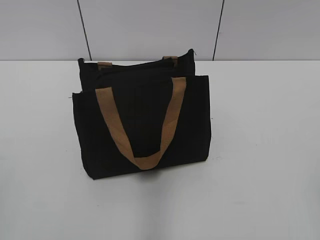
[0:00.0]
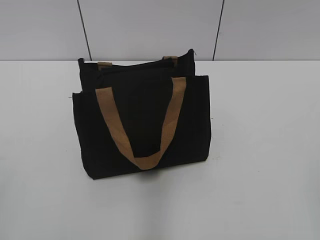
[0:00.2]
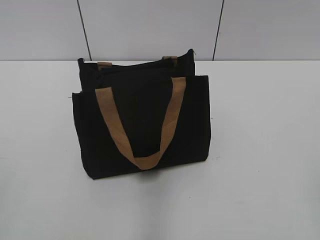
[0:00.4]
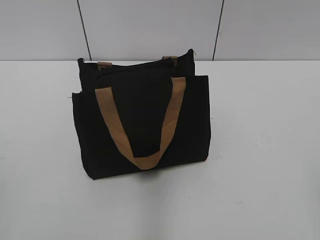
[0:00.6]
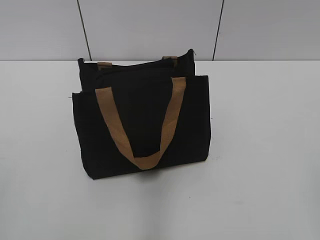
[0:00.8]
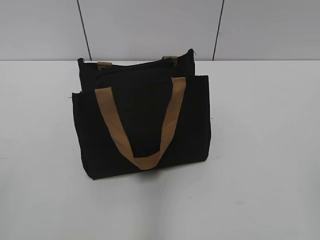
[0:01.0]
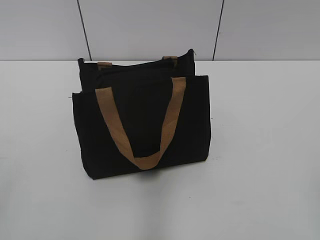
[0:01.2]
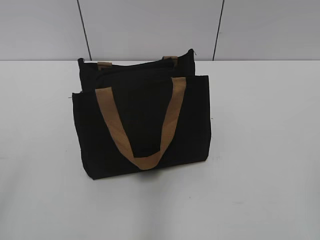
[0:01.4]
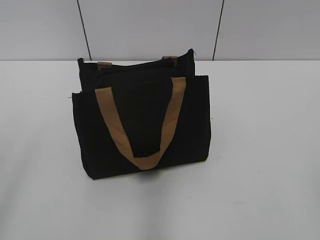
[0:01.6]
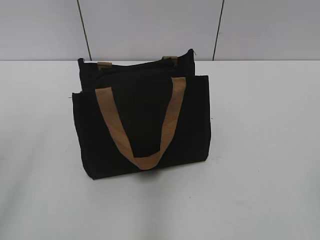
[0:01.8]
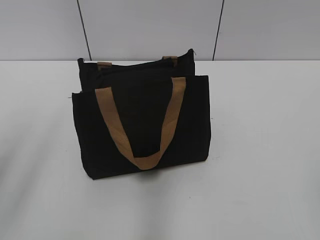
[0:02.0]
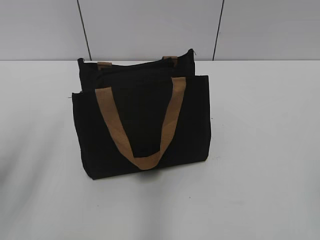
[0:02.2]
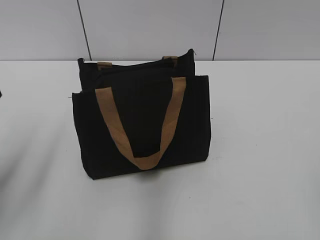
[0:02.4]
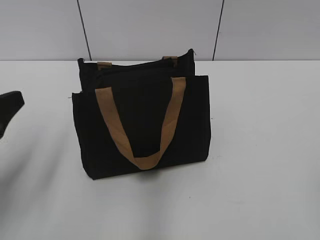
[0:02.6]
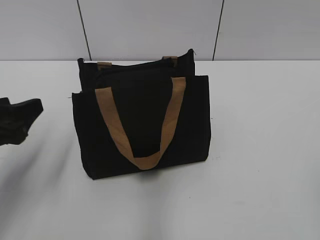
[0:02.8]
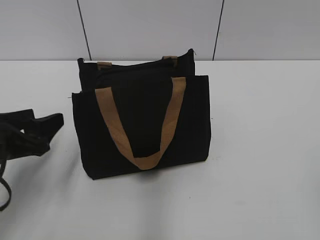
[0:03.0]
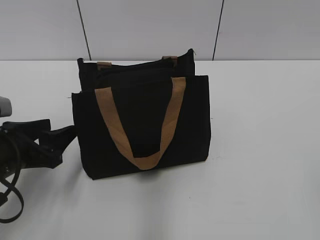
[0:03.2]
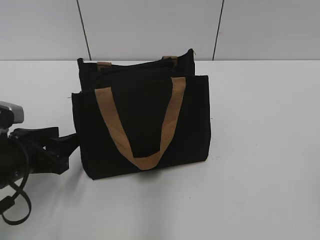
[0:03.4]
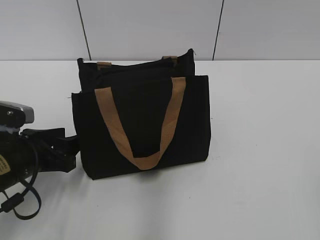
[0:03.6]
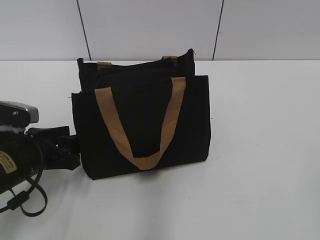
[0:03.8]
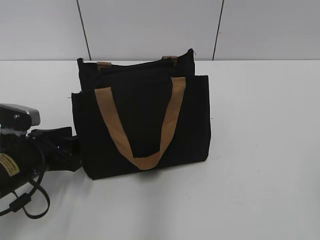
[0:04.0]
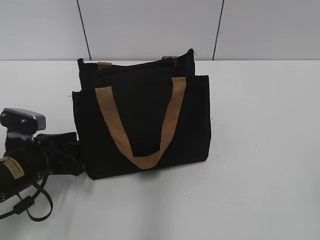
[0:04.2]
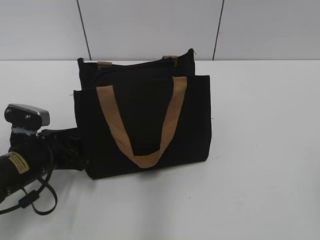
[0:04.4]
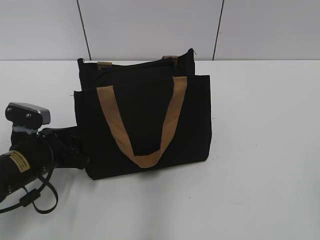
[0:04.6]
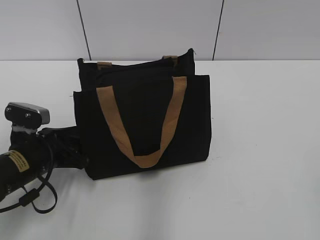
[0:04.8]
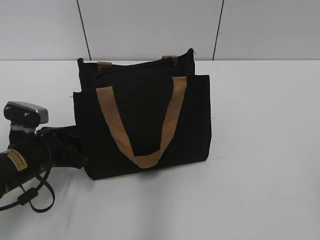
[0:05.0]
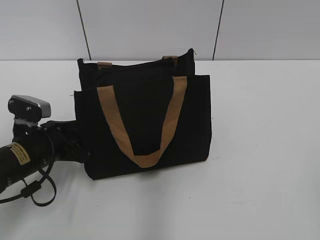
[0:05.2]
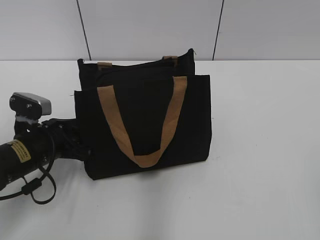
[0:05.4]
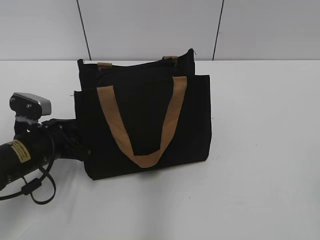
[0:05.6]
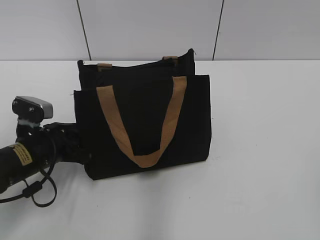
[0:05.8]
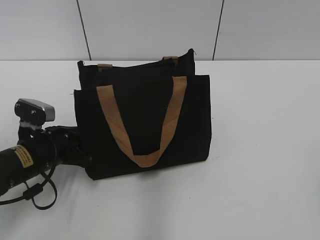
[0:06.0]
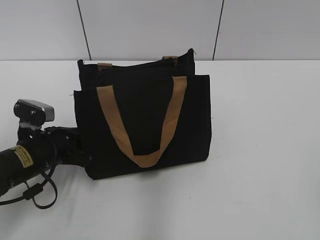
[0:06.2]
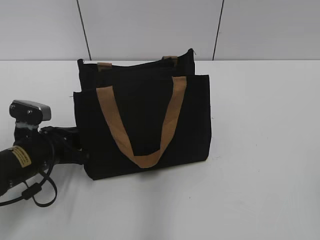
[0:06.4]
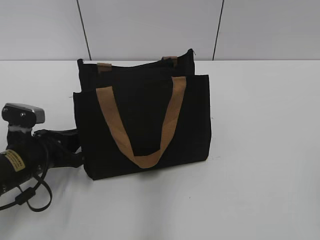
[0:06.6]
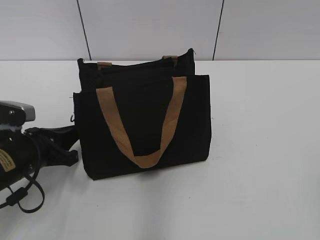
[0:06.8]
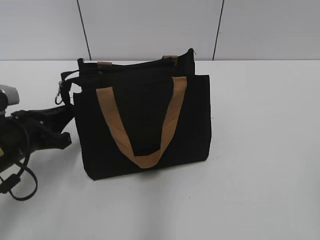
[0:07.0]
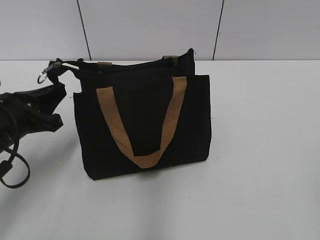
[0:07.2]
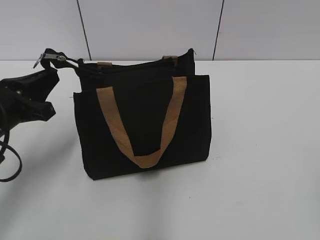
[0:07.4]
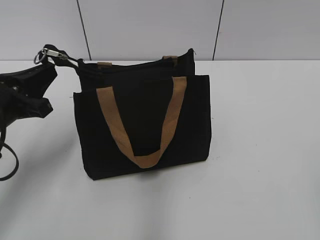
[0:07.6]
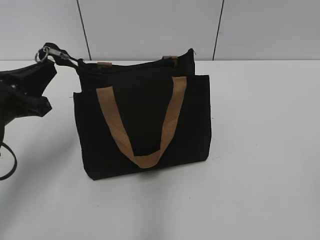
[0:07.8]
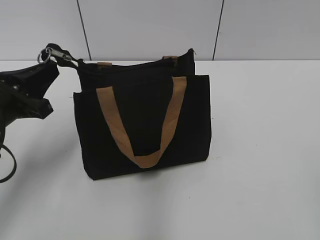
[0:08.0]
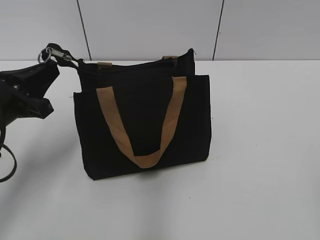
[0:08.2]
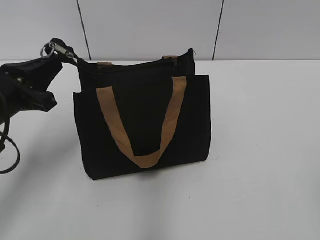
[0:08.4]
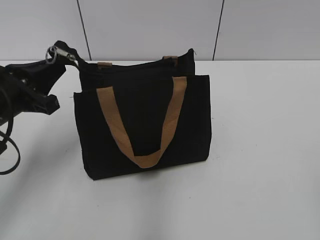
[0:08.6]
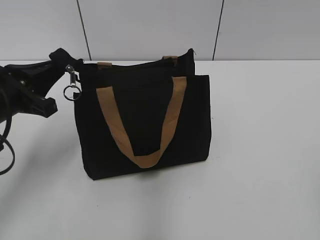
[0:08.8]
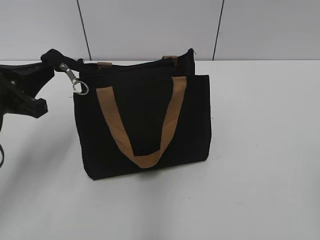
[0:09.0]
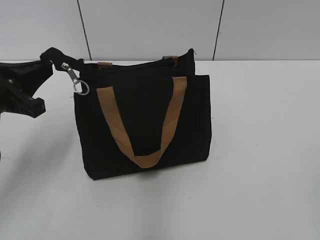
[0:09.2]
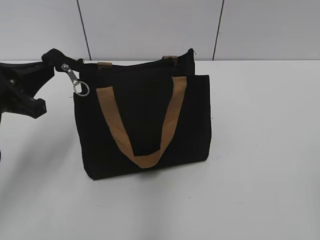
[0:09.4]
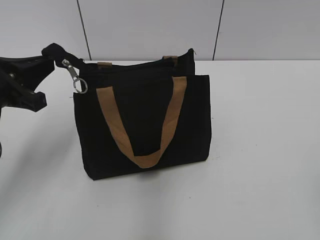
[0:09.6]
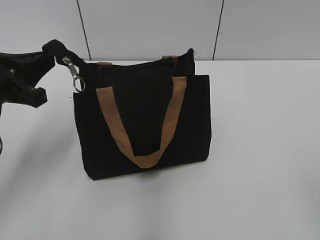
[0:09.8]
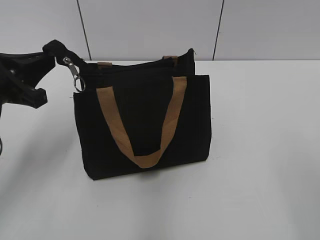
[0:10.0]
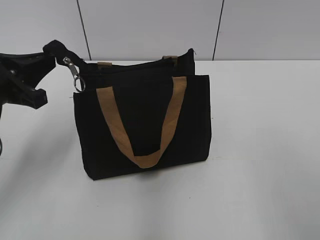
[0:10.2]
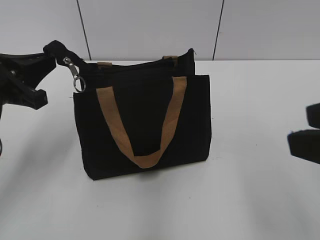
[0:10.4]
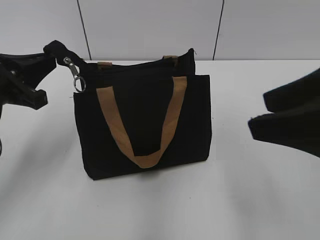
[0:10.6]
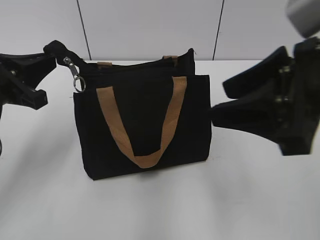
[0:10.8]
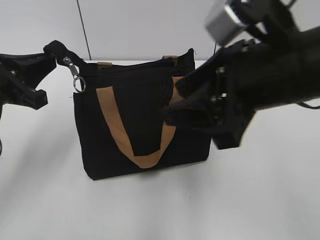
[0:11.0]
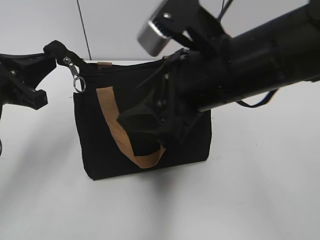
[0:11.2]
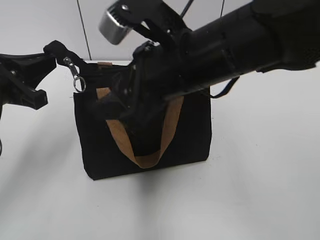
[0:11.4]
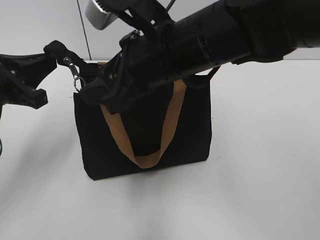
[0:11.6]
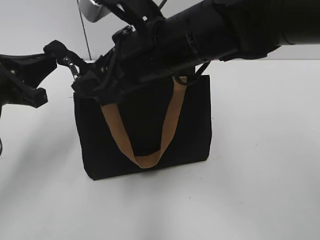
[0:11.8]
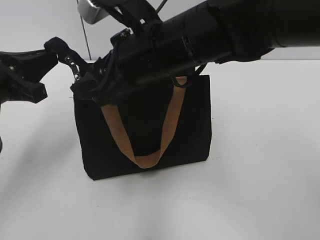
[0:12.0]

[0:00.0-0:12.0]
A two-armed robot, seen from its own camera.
0:01.6 to 0:03.0: The left gripper goes approximately 20 cm downward and forward.
0:03.0 to 0:04.4: The left gripper heads downward, covering approximately 10 cm.
0:04.4 to 0:06.0: The left gripper closes up.
0:06.0 to 0:07.6: The left gripper travels upward by roughly 10 cm.
0:07.6 to 0:09.0: The grippers move only a little.
0:09.0 to 0:10.4: The right gripper heads forward and to the left, covering roughly 15 cm.
0:10.4 to 0:12.0: The right gripper goes roughly 30 cm to the left and forward.

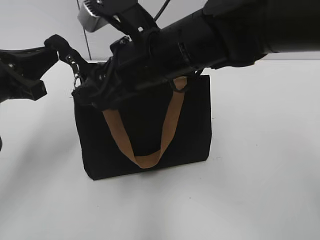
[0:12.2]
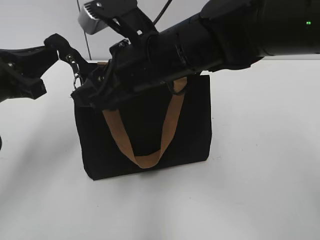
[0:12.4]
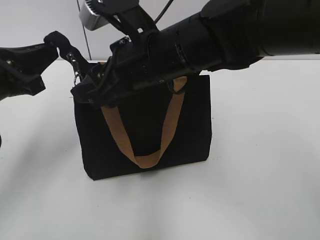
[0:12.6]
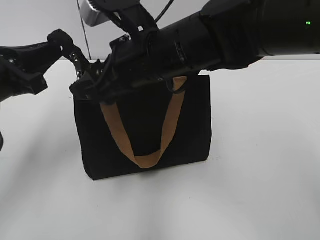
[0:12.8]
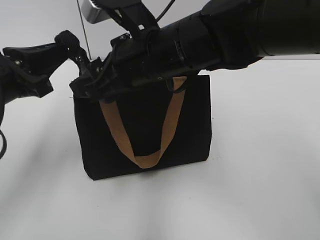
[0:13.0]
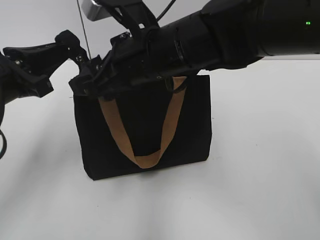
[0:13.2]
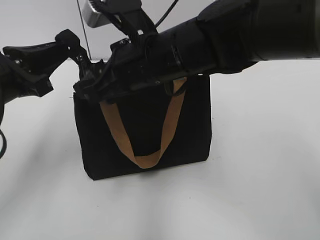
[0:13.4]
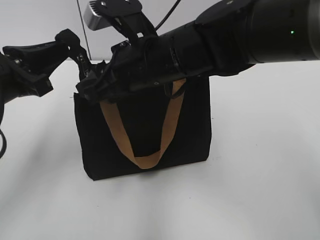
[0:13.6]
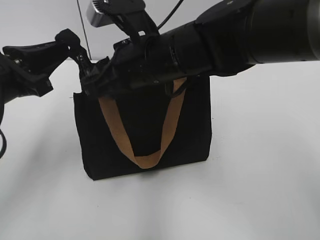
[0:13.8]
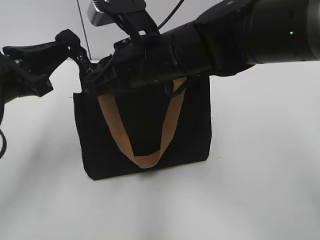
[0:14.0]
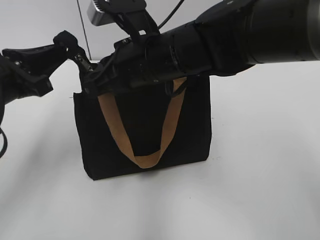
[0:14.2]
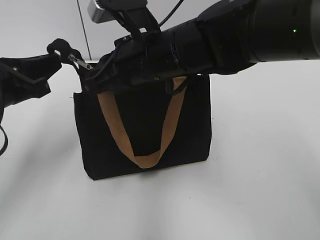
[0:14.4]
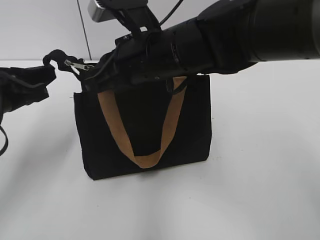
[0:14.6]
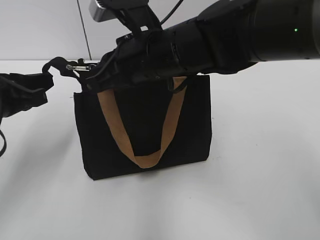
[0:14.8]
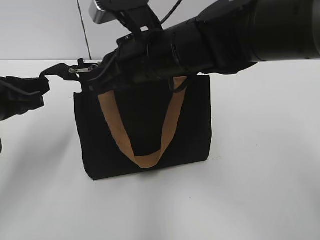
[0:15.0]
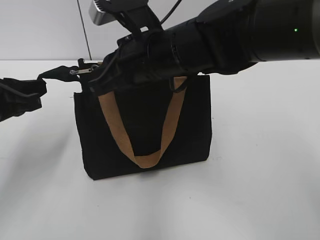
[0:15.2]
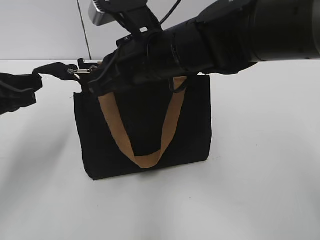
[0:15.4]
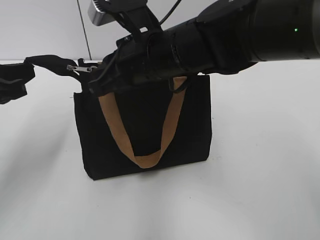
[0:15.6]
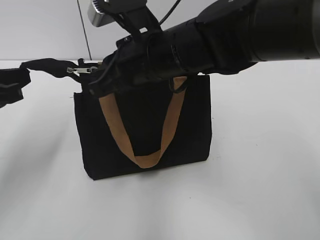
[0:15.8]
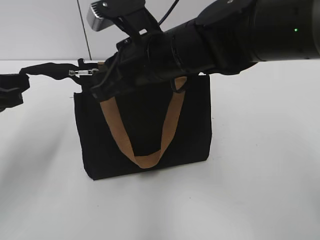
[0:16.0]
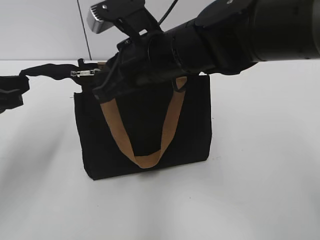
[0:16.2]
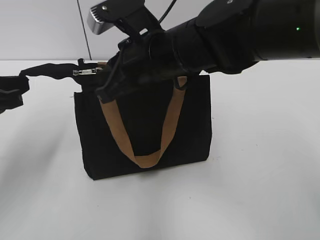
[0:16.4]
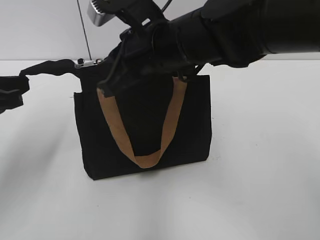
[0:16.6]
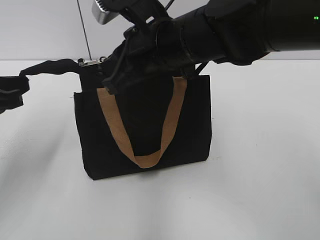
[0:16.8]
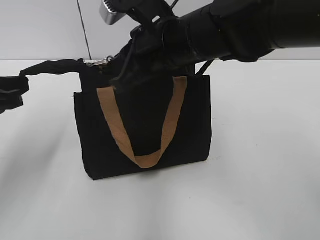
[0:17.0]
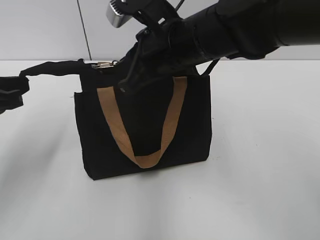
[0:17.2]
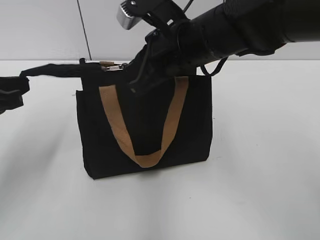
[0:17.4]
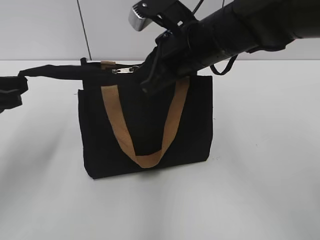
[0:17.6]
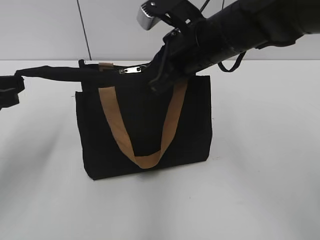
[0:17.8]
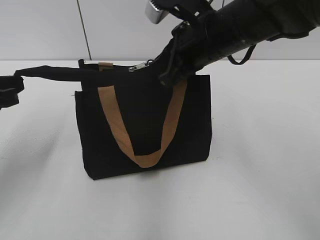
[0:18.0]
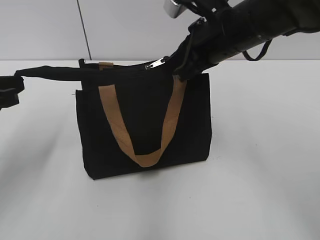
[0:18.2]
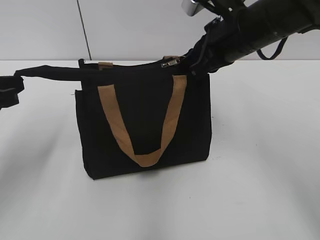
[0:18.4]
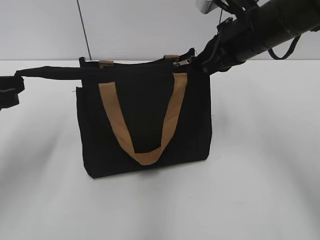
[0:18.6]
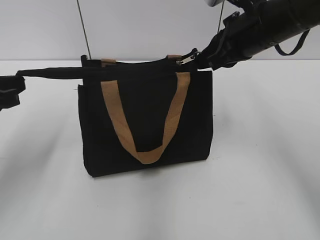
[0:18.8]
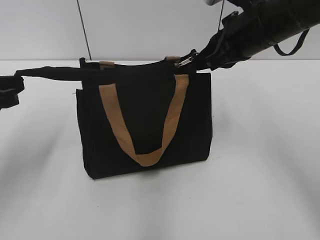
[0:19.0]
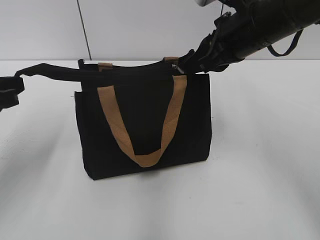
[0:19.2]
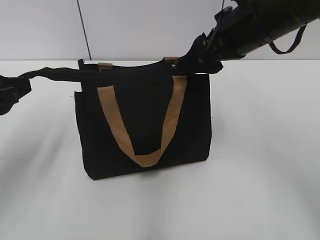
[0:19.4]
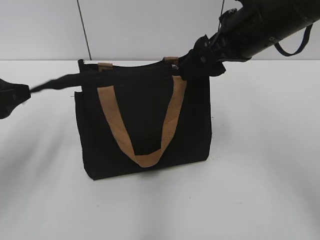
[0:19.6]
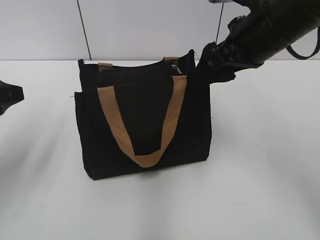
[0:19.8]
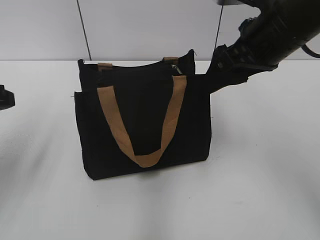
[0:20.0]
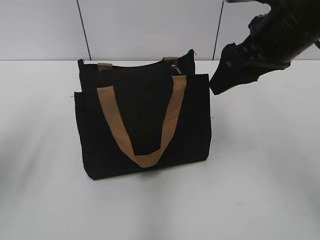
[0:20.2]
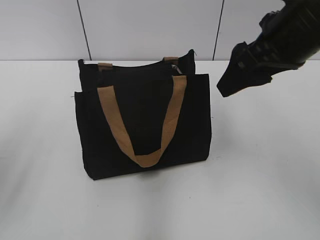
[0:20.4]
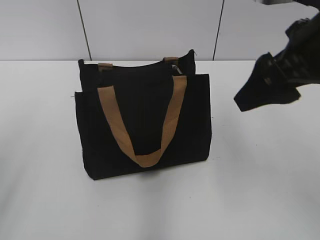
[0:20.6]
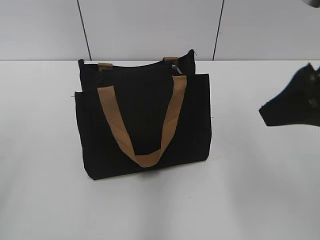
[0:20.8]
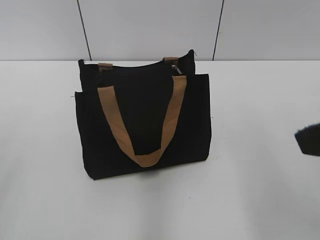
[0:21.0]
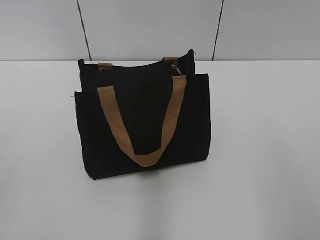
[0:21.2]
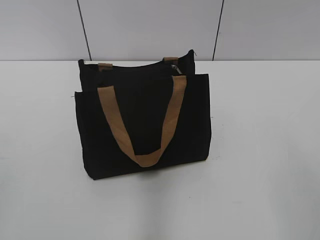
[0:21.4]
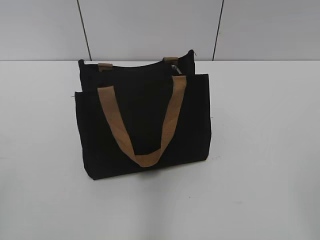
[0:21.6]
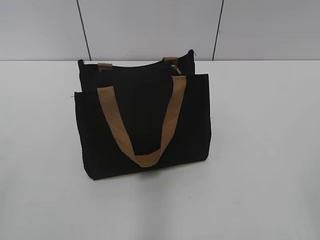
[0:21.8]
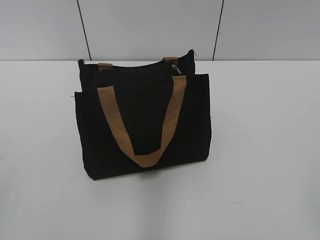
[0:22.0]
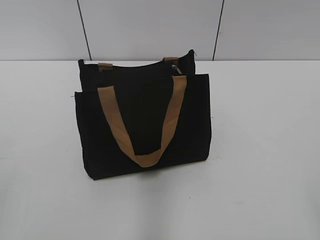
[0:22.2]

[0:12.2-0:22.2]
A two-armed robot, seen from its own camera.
Step, 0:12.2 to 0:19.4: Zip up the bag with your right hand.
0:12.2 to 0:13.6: The grippers make only small movements.
0:13.6 to 0:15.0: The right gripper closes.
0:15.0 to 0:16.4: There are only small adjustments of the grippers.
0:16.4 to 0:18.0: The right gripper goes approximately 5 cm to the right.
0:18.0 to 0:19.4: The right gripper travels to the right by some 5 cm, and opens its fingers, while the left gripper opens up.
0:19.4 to 0:20.8: The left gripper goes about 15 cm backward and upward, while the right gripper is displaced backward by approximately 15 cm.
0:20.8 to 0:22.2: The right gripper shifts about 25 cm backward and to the right.
